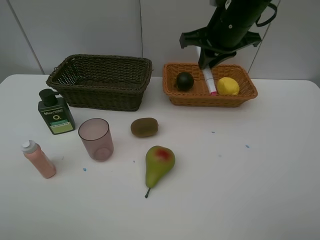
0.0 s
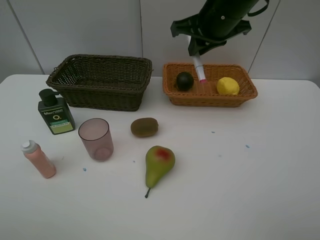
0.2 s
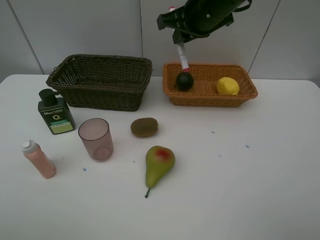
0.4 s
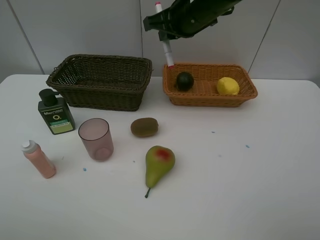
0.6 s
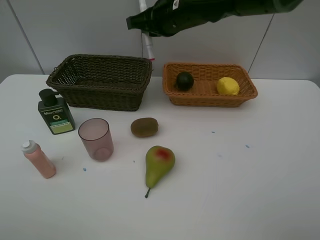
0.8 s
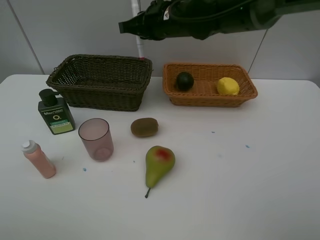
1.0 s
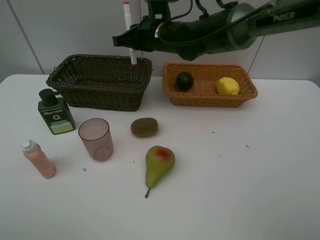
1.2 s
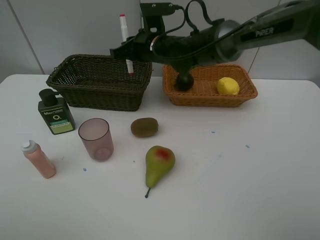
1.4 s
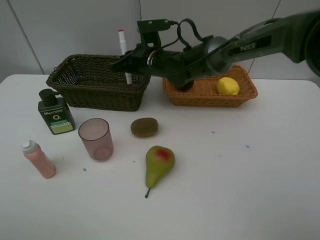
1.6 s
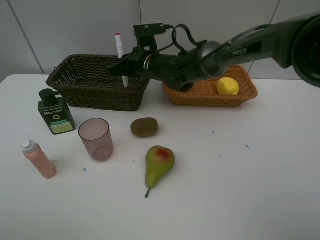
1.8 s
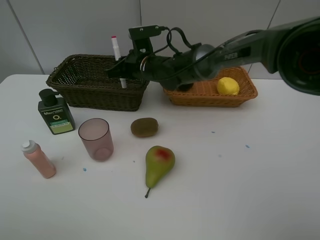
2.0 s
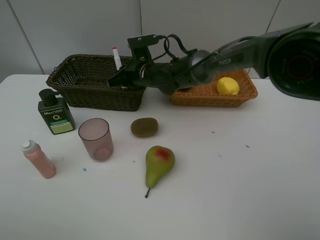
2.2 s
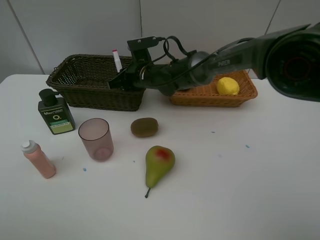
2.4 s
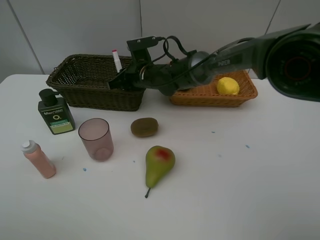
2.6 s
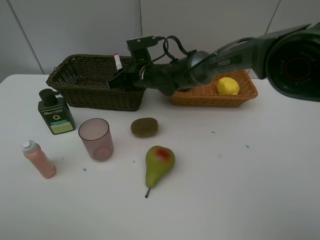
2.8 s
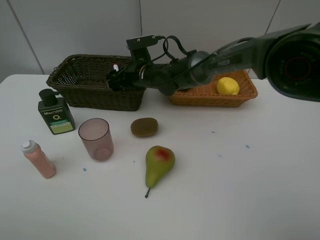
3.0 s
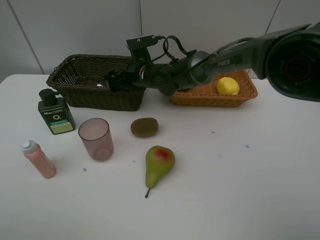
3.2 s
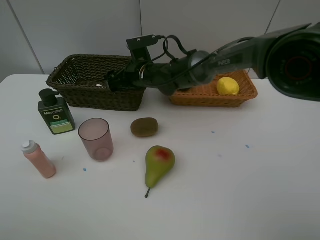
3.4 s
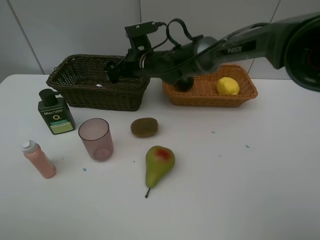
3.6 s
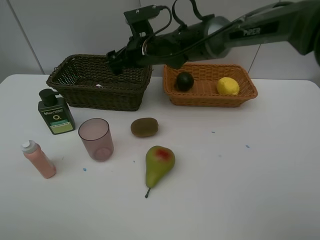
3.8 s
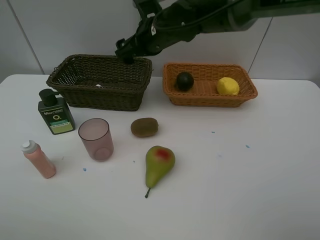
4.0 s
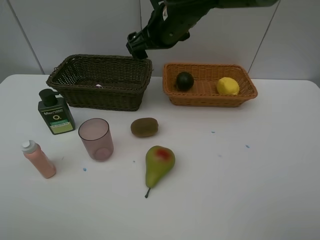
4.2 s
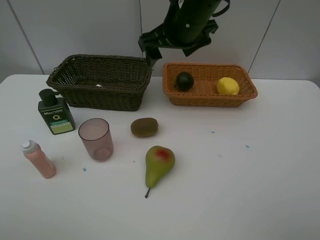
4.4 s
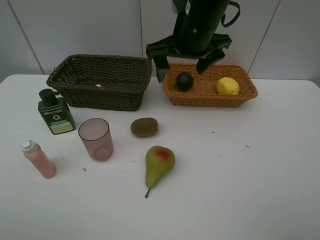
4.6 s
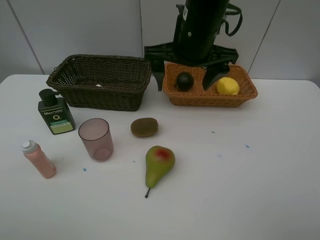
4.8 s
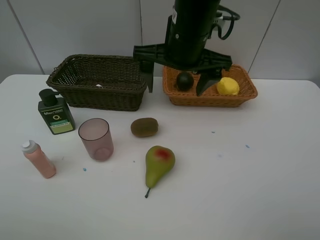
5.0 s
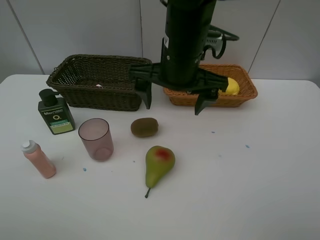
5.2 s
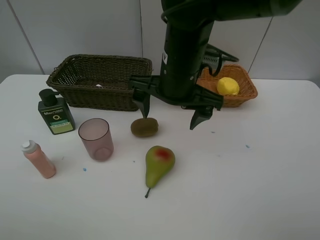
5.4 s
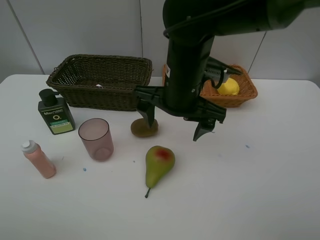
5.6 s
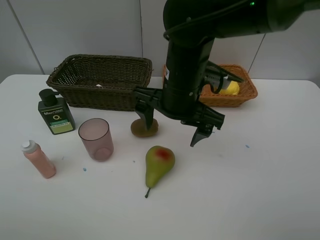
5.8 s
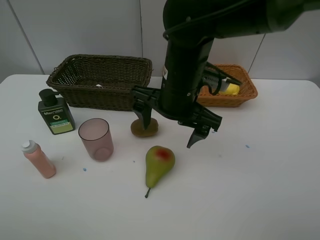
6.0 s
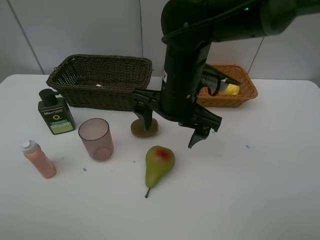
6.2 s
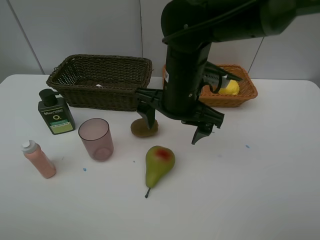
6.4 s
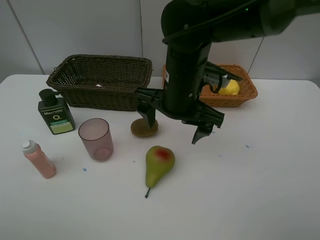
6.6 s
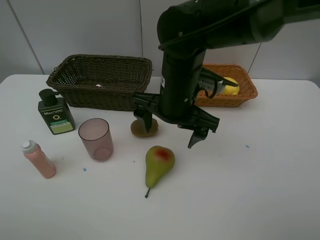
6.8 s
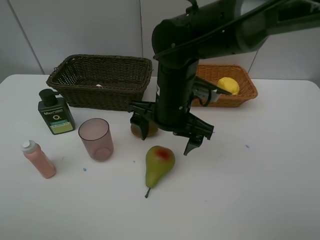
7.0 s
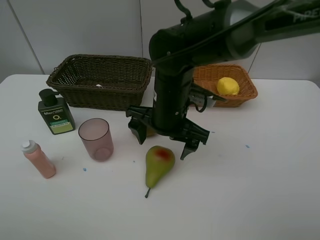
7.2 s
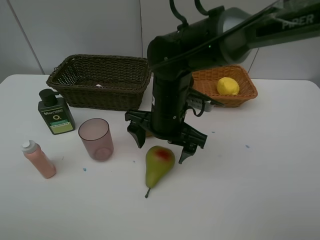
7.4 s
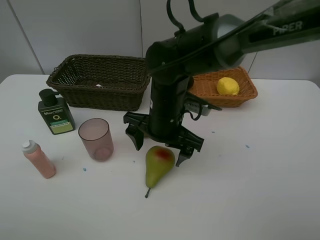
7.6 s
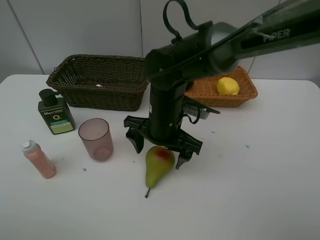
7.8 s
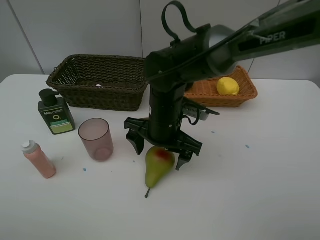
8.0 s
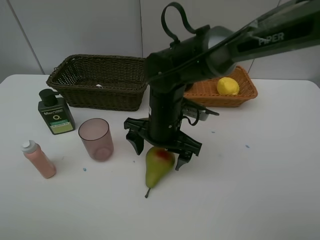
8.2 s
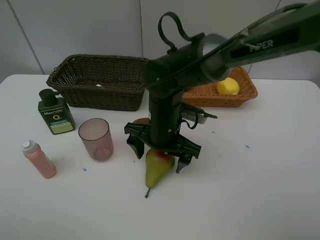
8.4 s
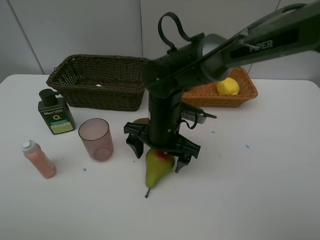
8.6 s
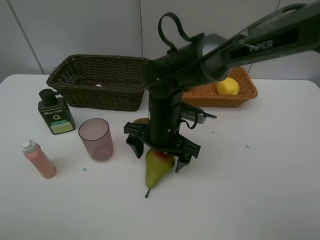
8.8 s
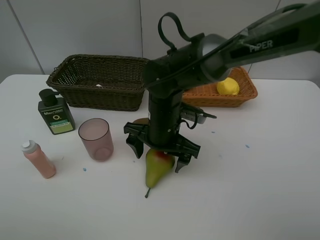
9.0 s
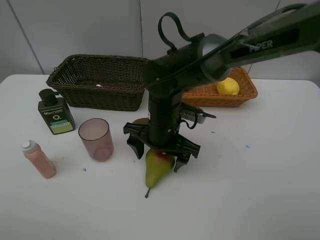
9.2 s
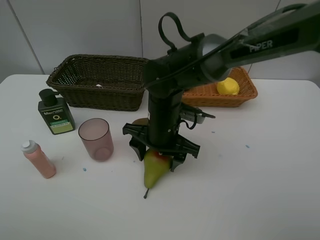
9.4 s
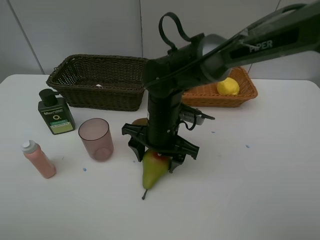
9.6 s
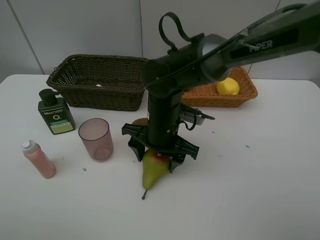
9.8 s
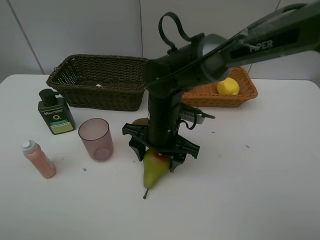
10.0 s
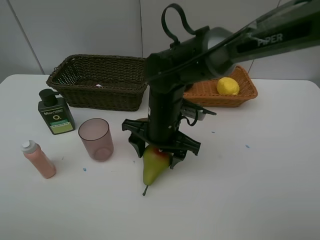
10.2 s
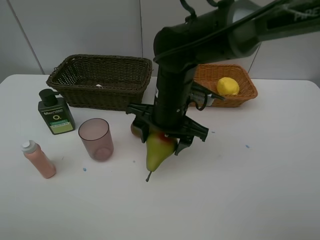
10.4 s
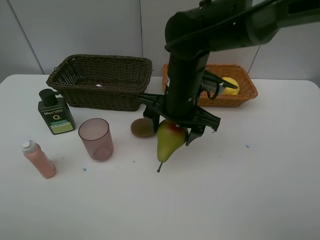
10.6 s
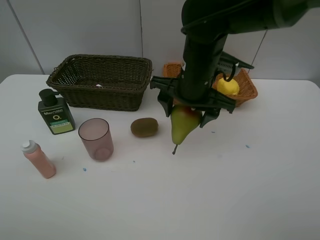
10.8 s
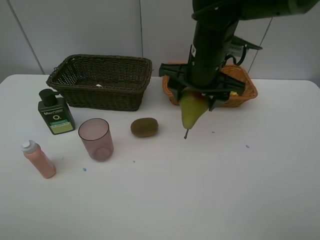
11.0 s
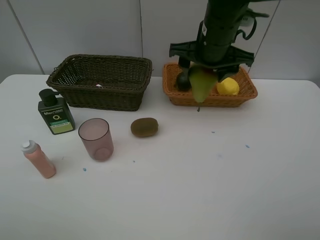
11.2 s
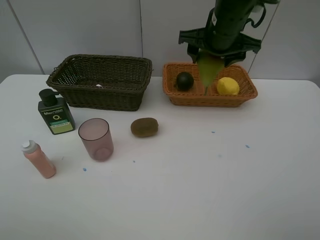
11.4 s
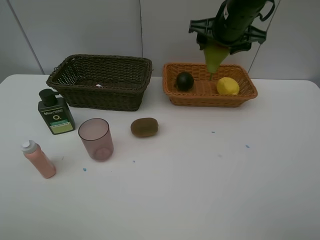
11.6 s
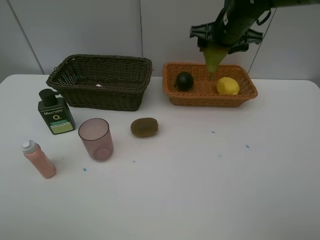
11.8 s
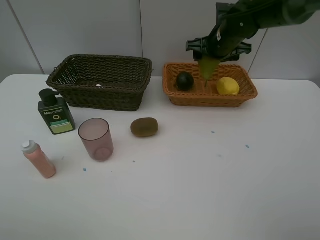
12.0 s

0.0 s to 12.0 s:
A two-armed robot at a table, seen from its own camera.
Task of the whole recording: Place multiple objects separately in different baskets.
Step, 0.0 to 3.6 s: Place the pink marker pen in the dark basket with right gripper.
Step, 3.8 to 10.4 s: Pick up the pear with right gripper.
0.0 to 1.6 s: The right gripper travels to the left, downward and forward by approximately 20 cm.
1.6 to 3.0 s: The right gripper opens up.
3.0 to 4.4 s: The right gripper travels upward, to the right and backward by about 20 cm.
4.4 to 6.0 s: The right gripper is displaced backward and downward by approximately 10 cm.
6.0 to 7.6 s: The right gripper moves downward, approximately 5 cm.
7.6 to 9.0 s: The grippers stay close to where they were, moving slightly.
9.0 to 10.4 s: The right gripper heads upward, covering approximately 5 cm.
10.4 to 12.0 s: The right gripper shifts some 20 cm forward and to the right.

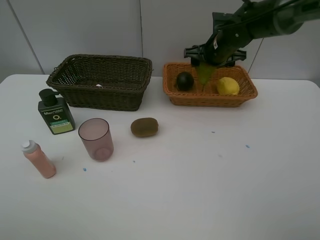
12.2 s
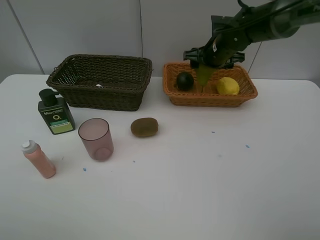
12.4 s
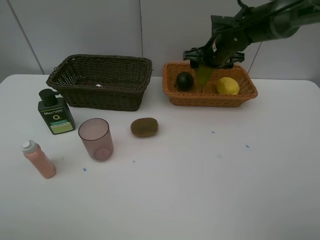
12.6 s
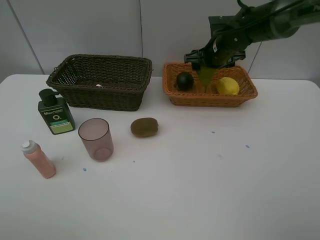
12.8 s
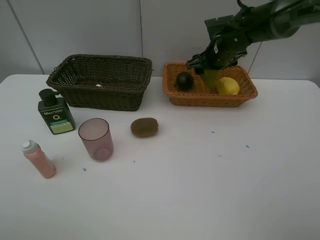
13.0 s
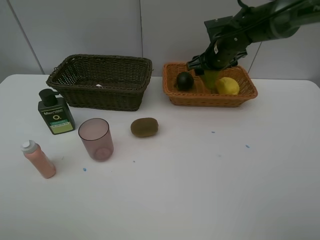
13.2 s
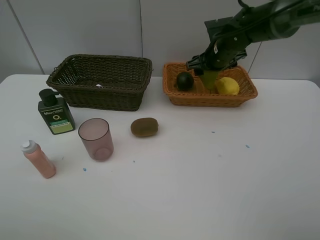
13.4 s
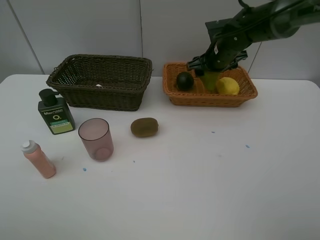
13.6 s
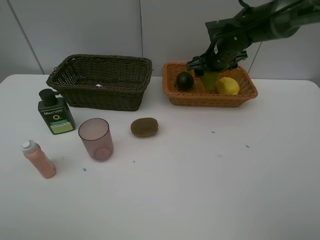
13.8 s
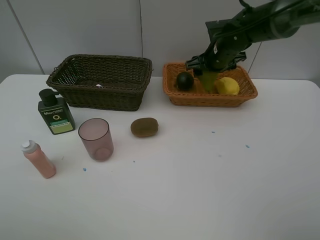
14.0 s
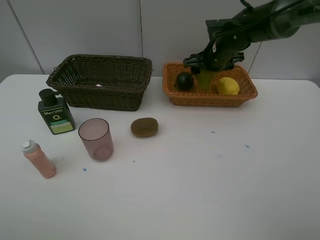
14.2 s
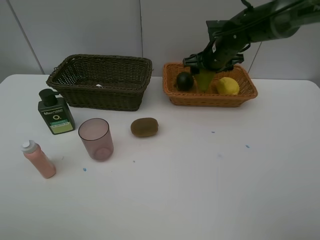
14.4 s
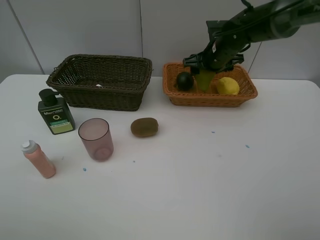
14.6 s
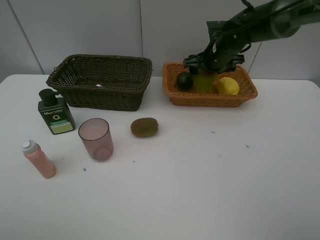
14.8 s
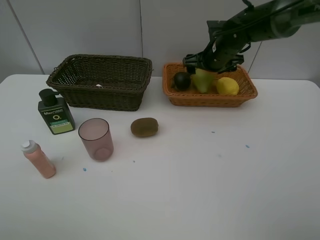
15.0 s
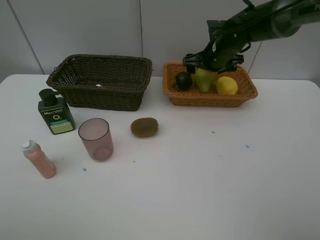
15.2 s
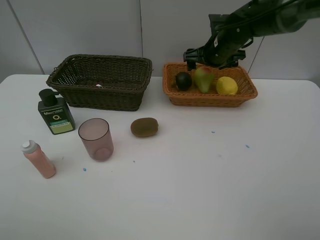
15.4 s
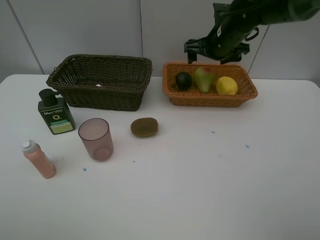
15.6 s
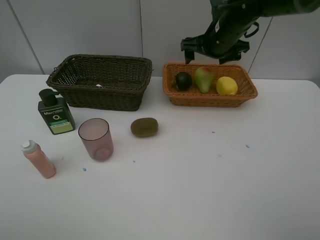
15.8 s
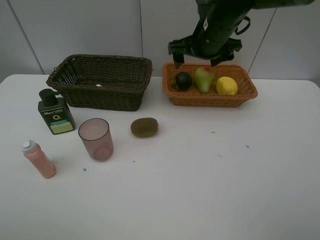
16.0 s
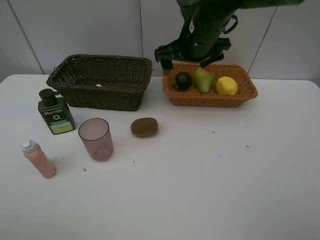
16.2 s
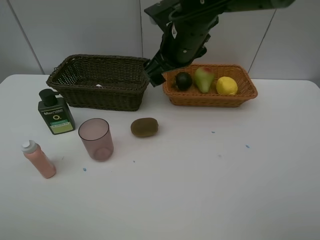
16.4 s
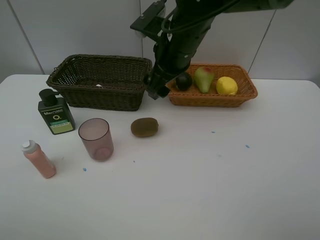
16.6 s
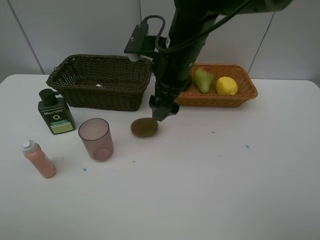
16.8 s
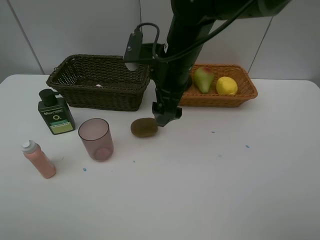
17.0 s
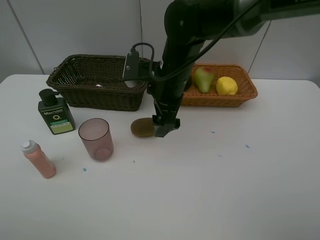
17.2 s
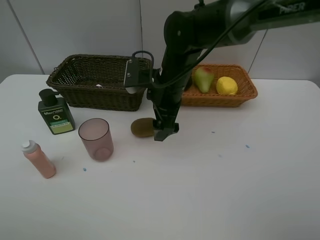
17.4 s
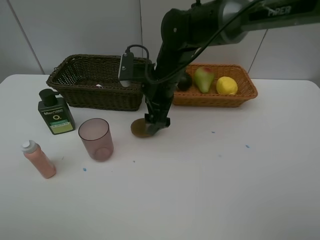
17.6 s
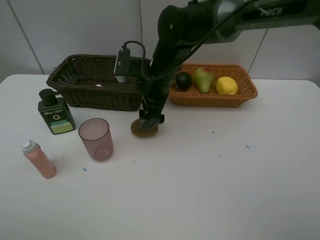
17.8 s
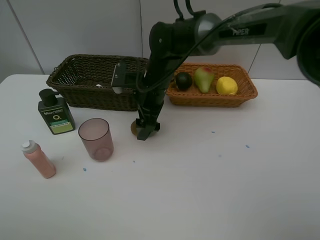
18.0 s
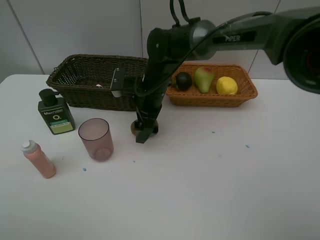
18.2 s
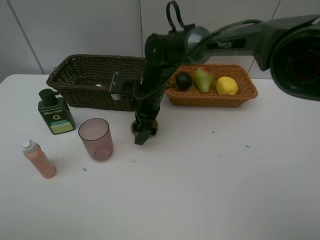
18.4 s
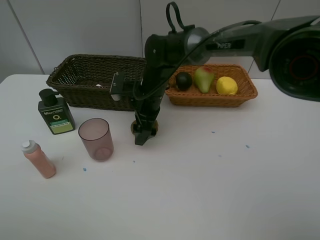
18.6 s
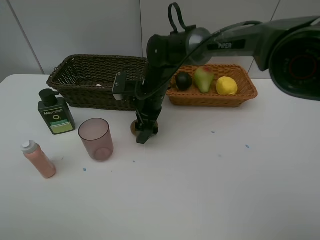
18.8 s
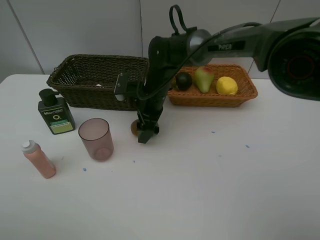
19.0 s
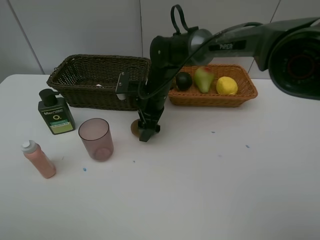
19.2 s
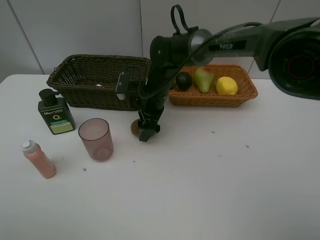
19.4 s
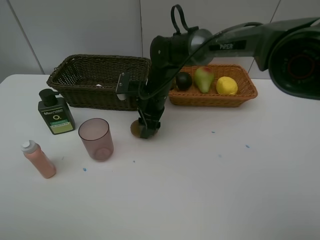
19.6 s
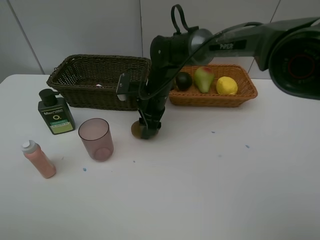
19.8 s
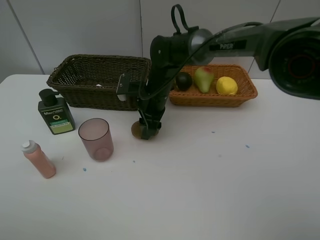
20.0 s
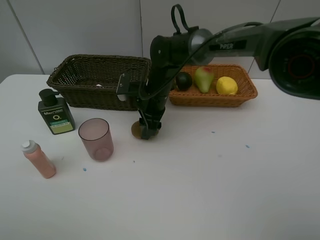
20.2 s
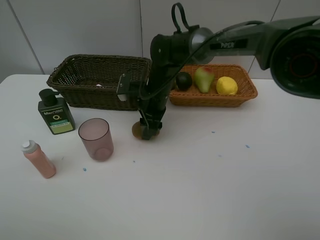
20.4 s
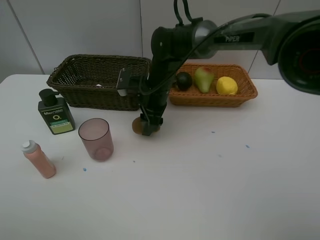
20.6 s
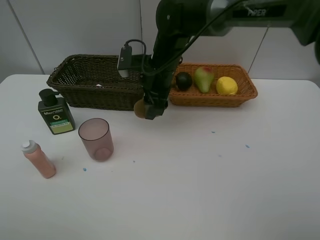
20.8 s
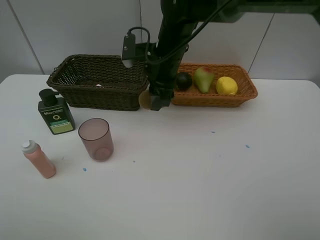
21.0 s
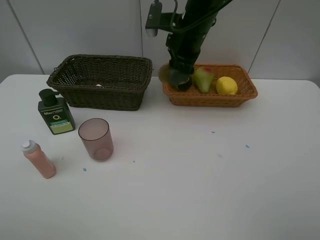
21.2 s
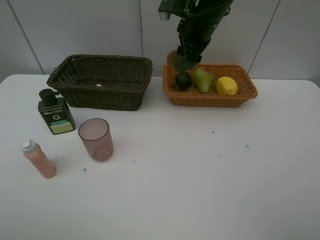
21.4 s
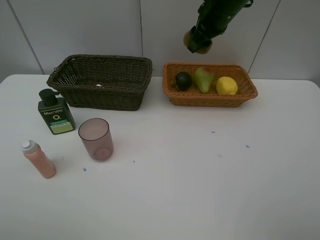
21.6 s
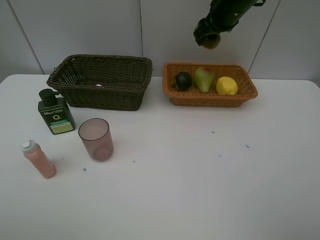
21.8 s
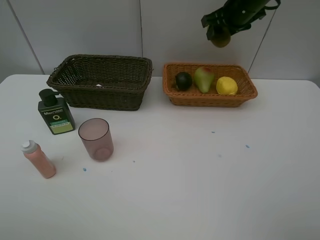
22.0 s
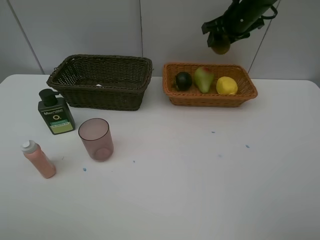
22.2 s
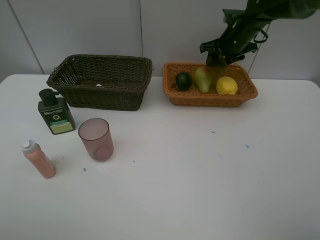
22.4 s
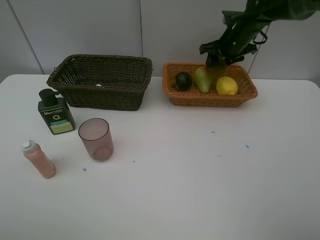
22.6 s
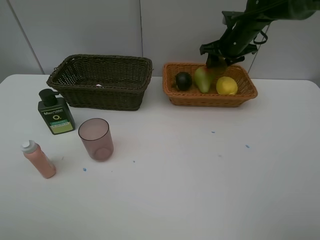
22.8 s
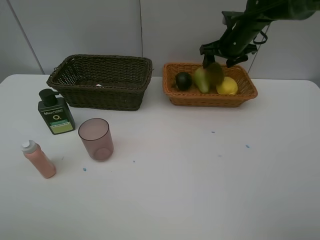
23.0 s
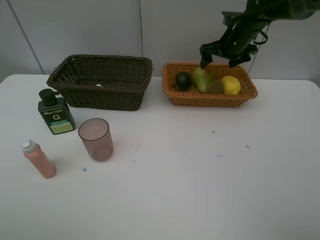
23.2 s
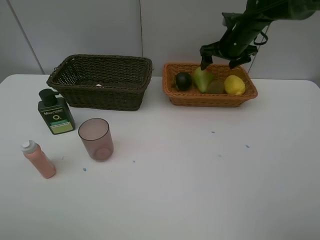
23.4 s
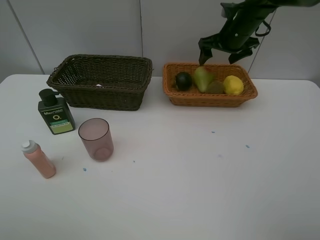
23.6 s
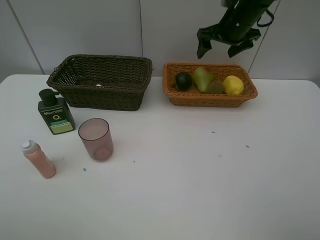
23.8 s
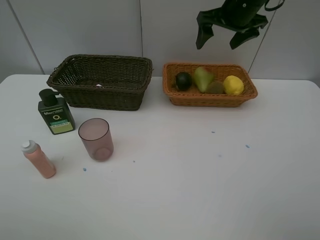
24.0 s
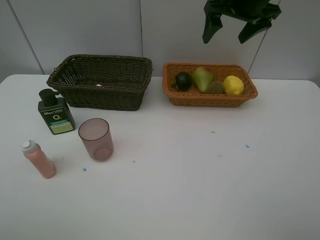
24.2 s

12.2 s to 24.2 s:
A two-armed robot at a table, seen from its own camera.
Task of the whole recording: Place multiple objects separately in different baskets.
Step, 12.2 to 15.6 s: Place the pear in the light basket with right gripper.
Step, 15.8 to 20.6 s: Pick up kiwi with right gripper.
Step, 20.8 to 23.4 s: Place the kiwi in the light basket with right gripper.
12.2 to 15.2 s: The grippers stay close to where they were, moving slightly.
15.2 to 16.6 s: The right gripper goes about 20 cm to the left, backward and upward.
16.6 to 18.2 s: The right gripper moves downward, about 10 cm.
18.2 to 19.8 s: The right gripper closes its fingers.
19.8 to 21.2 s: The right gripper is displaced upward and to the right by approximately 15 cm.
21.2 to 22.6 s: The right gripper is displaced to the right, forward and downward by some 15 cm.
22.6 to 24.2 s: The right gripper heads upward and backward, covering approximately 15 cm, and opens.
